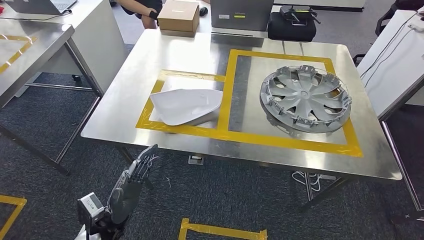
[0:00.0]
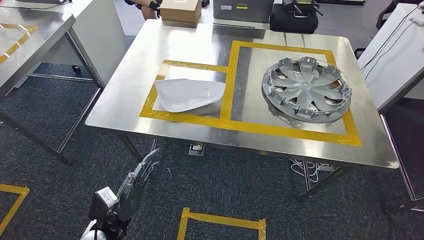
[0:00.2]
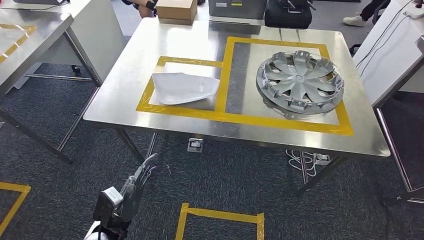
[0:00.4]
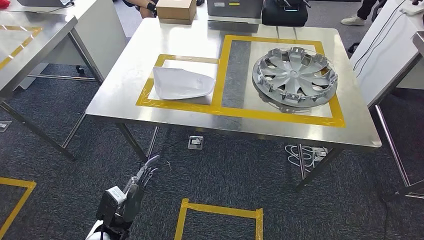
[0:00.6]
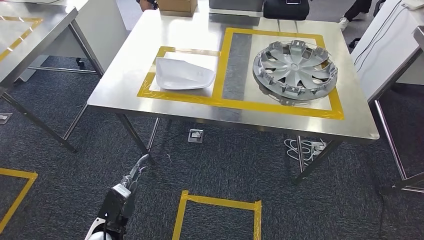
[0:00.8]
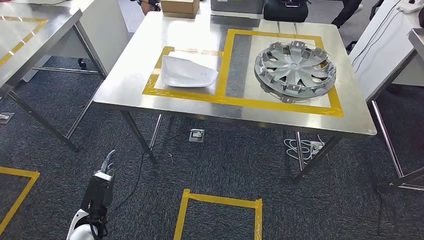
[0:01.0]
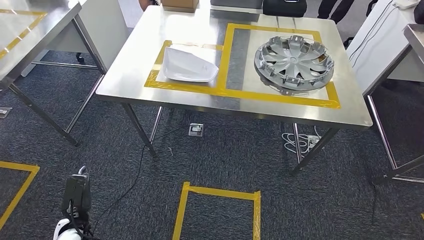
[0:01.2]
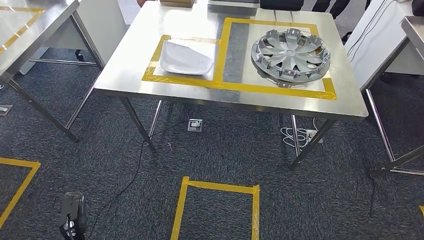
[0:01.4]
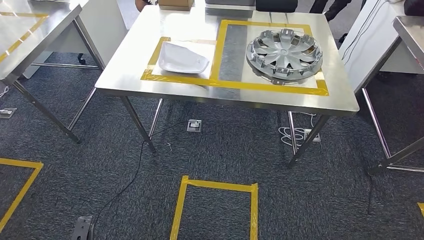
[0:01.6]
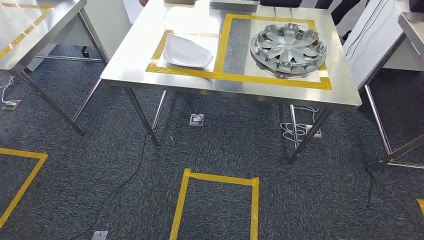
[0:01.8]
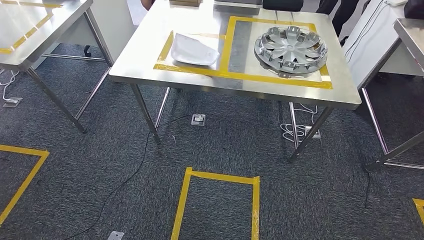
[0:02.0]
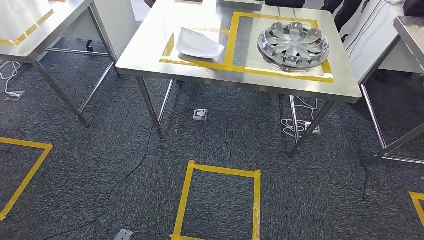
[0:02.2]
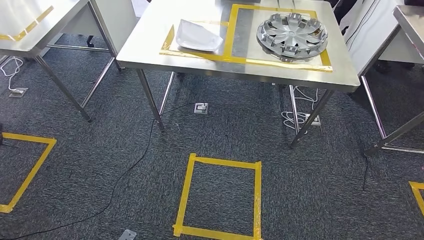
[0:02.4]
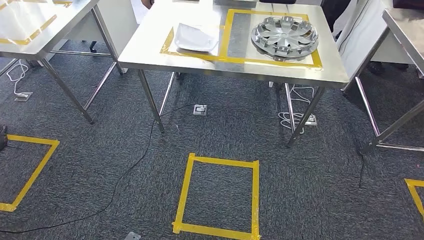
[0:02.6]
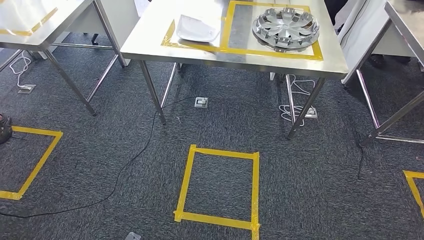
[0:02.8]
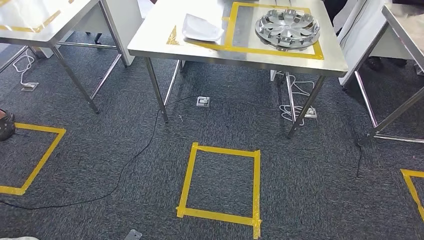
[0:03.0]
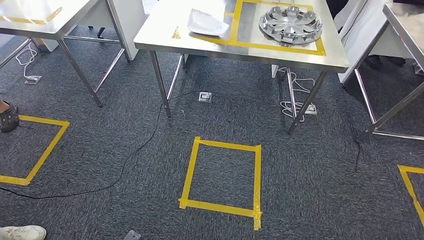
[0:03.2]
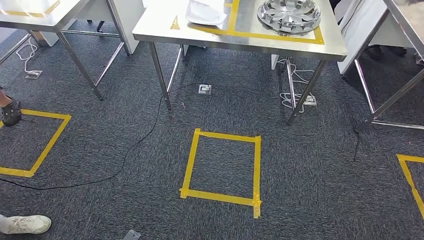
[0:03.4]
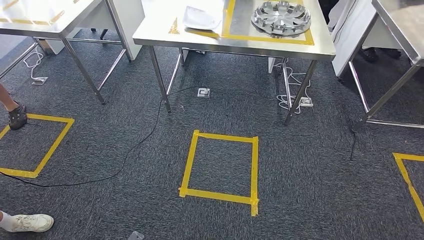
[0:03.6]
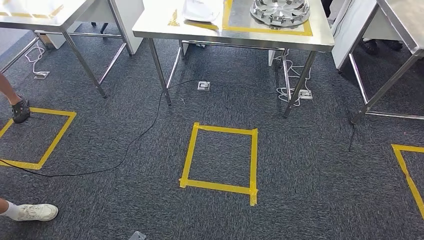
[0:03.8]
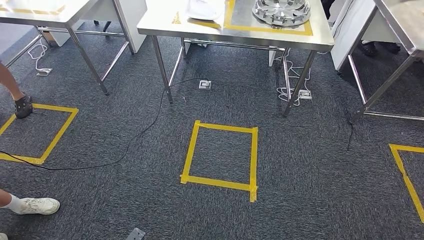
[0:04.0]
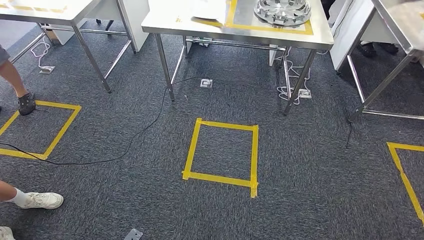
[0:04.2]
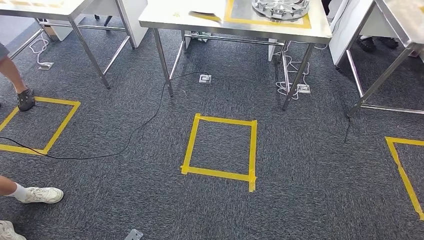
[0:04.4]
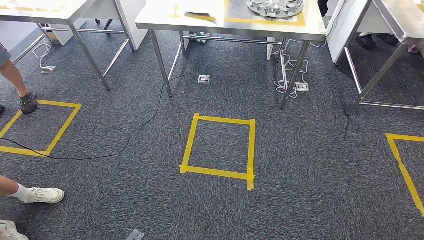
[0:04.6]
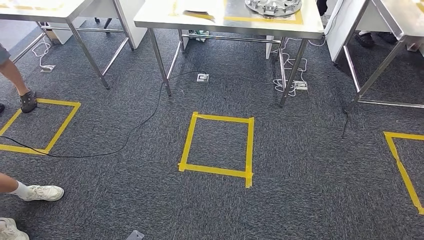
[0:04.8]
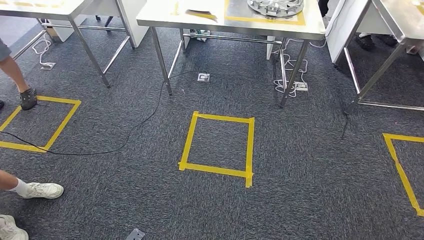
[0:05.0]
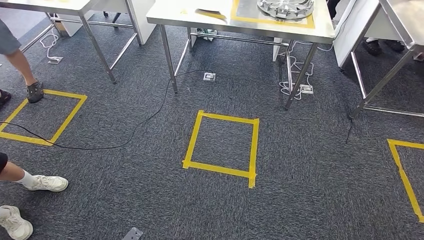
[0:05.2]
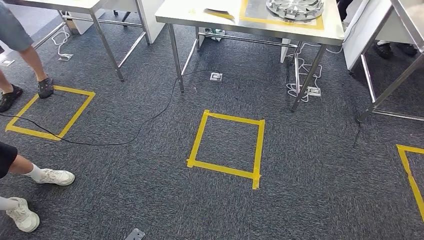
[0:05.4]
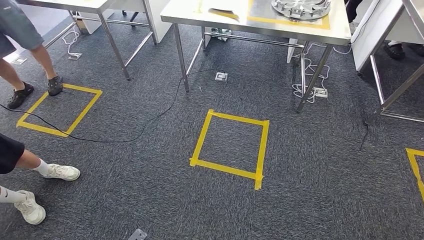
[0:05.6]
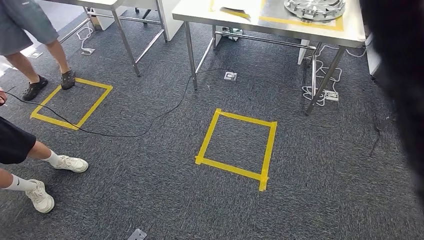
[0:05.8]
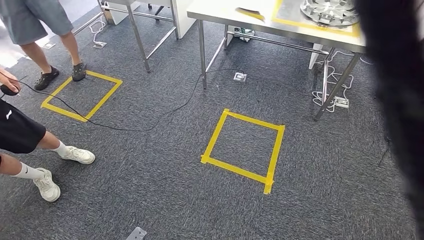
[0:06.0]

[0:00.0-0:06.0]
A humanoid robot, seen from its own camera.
Step, 0:00.0 to 0:06.0: Return to the initial position at the workbench.
